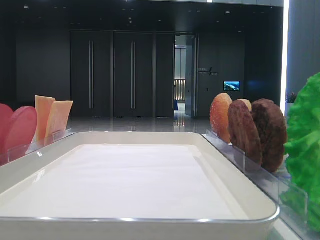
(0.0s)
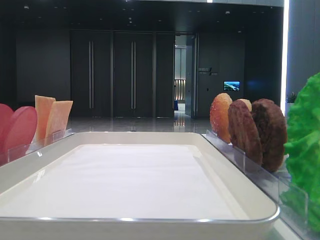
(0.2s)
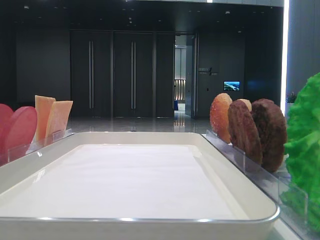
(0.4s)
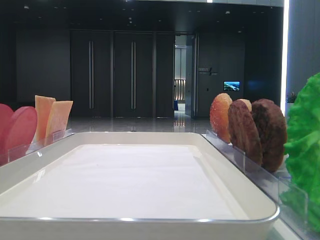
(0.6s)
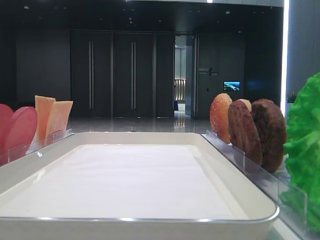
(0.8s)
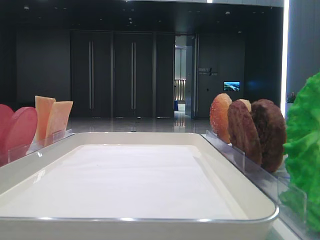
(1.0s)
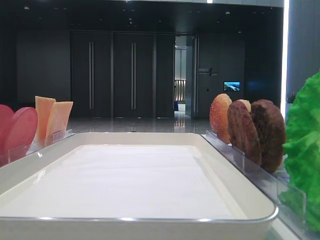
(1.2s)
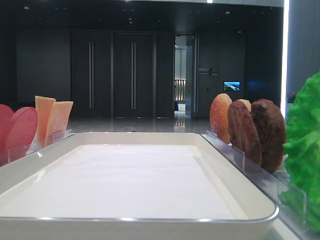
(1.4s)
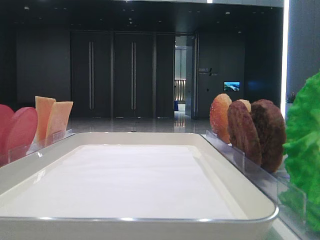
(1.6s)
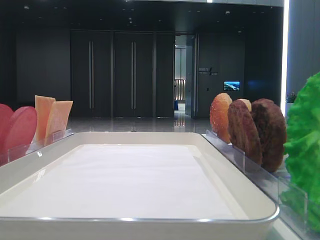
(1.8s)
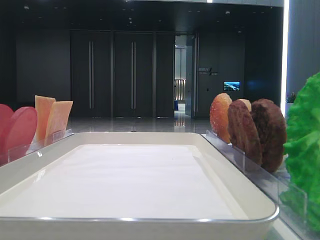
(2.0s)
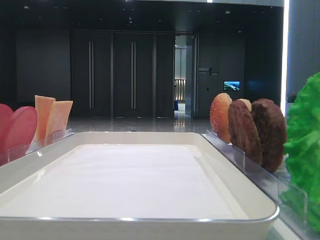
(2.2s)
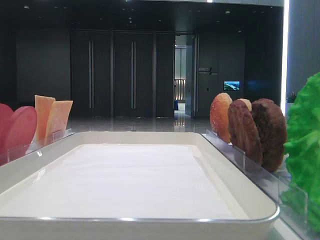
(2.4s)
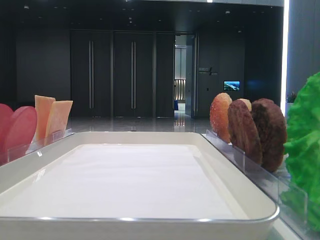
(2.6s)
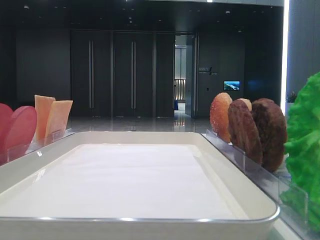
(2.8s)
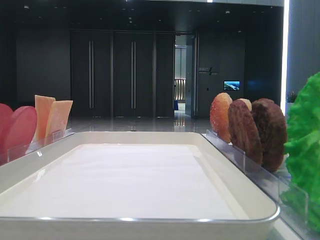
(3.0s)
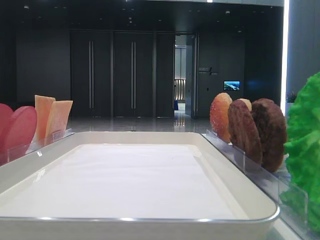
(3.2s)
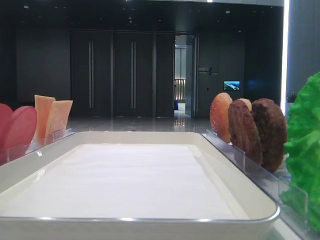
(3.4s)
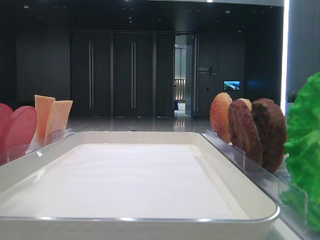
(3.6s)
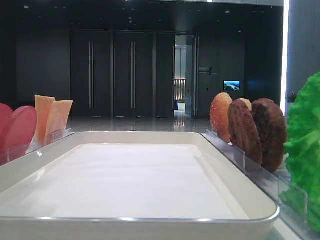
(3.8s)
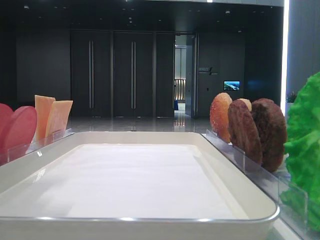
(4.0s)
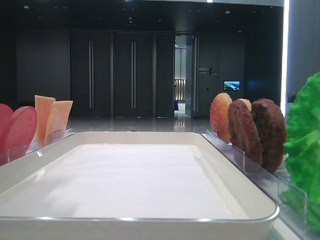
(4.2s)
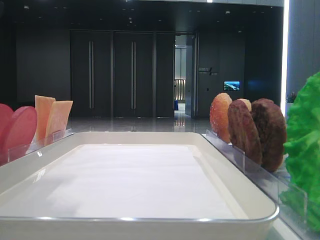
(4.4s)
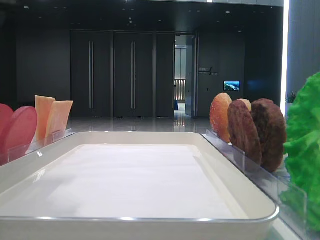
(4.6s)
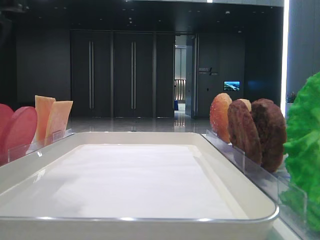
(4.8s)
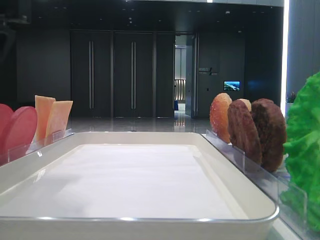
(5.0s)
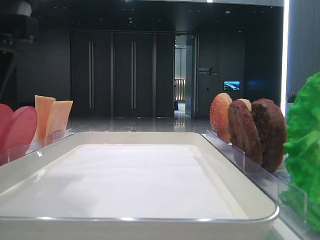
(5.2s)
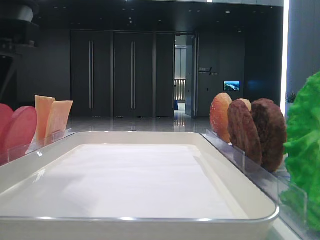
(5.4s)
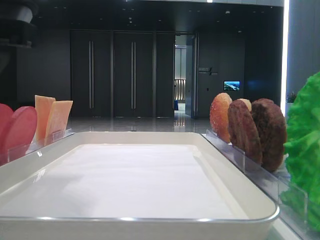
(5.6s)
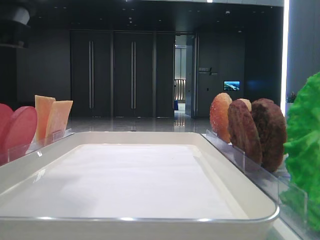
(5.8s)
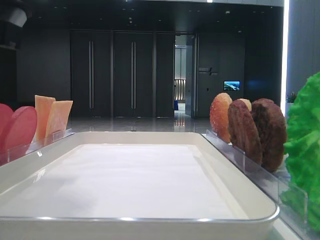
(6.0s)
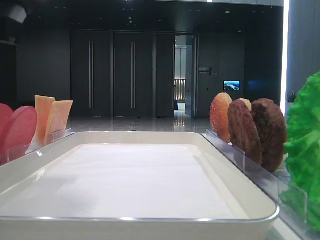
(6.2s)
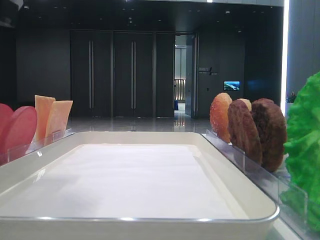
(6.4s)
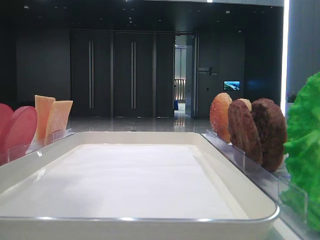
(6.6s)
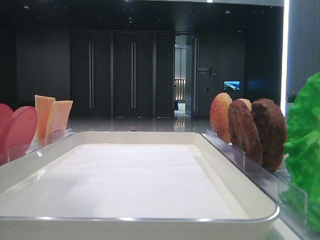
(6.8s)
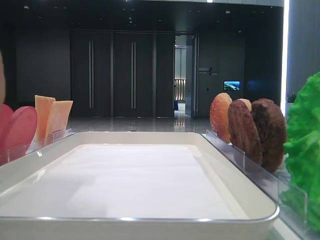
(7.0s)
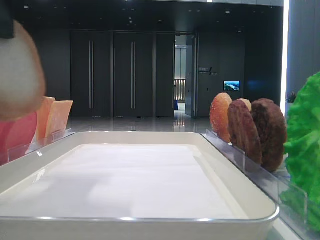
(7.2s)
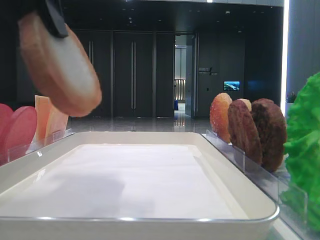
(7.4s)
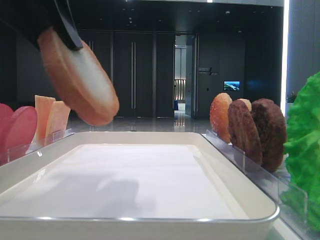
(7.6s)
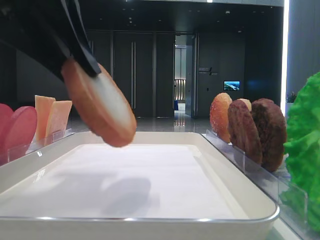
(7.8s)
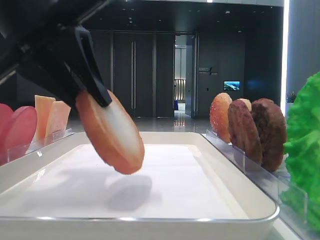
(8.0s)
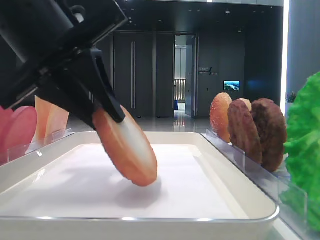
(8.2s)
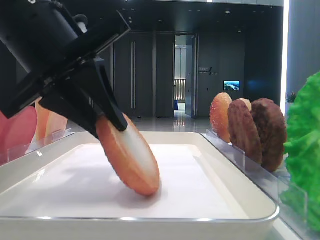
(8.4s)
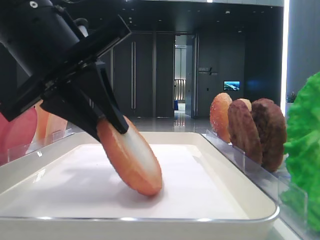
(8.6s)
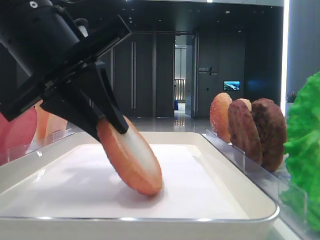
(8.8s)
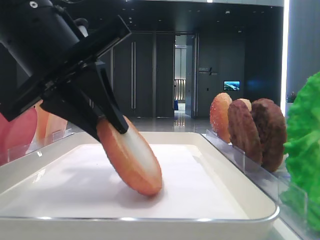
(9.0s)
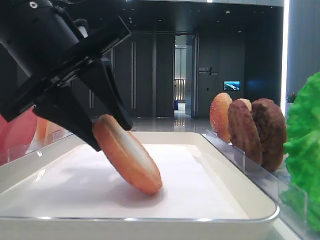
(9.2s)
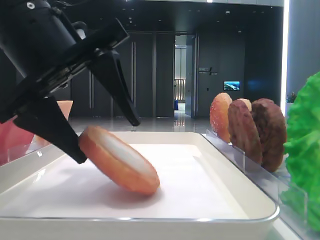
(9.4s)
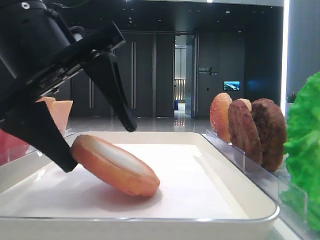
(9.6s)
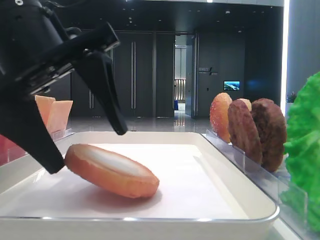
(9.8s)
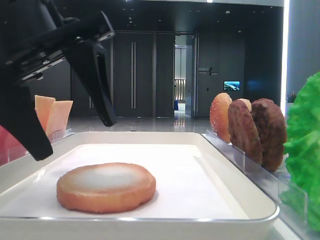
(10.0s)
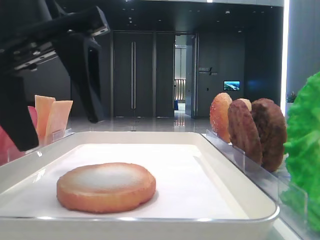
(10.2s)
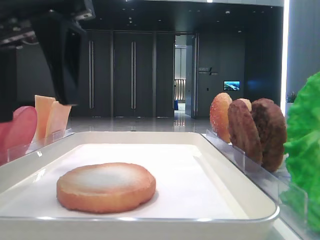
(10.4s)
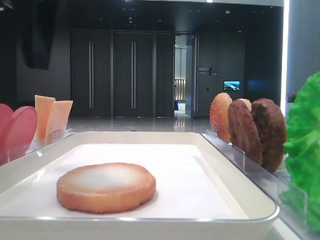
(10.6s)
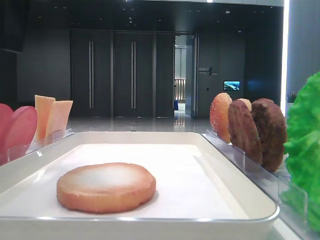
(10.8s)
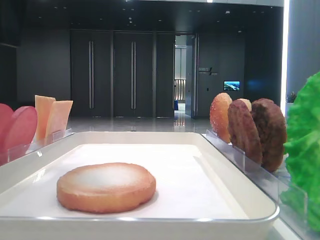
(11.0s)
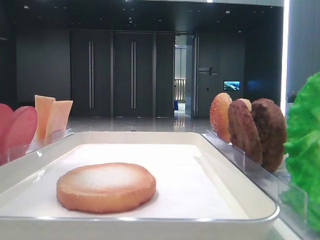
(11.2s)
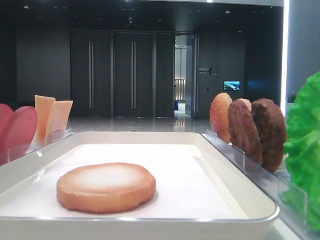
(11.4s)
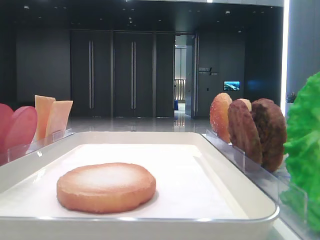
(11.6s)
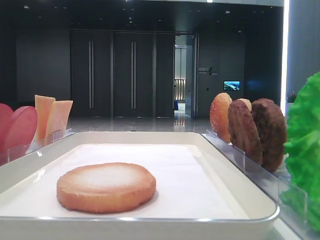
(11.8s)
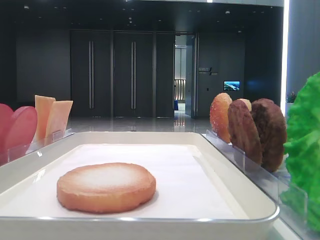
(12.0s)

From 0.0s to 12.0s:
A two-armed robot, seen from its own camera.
Step, from 0.0s to 6.0s: Pick up the bottom bread slice with the left hand.
Step, from 6.2s to 9.8s: Place the bottom bread slice on the tray with the left hand.
From 1.6s to 3.0s: The left gripper is displaced forward by some 15 cm.
From 3.0s to 4.4s: The left gripper shifts roughly 15 cm to the right and downward.
From 7.6s to 9.0s: The left gripper shifts approximately 5 cm downward.
From 9.0s to 10.4s: The left gripper goes about 5 cm upward, and opens its fingers.
From 10.4s to 12.0s: The left gripper is displaced to the left, upward and backward by about 20 cm.

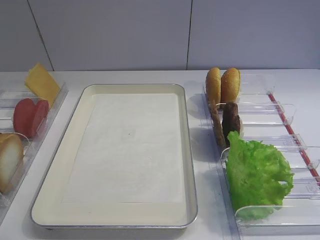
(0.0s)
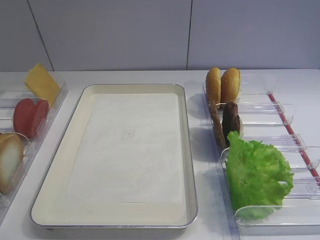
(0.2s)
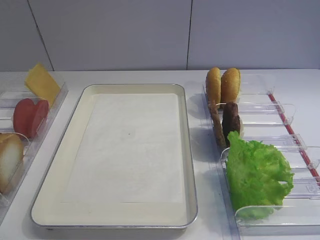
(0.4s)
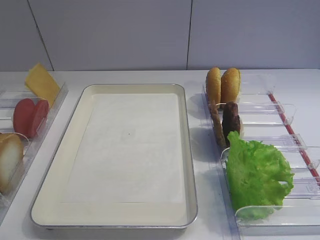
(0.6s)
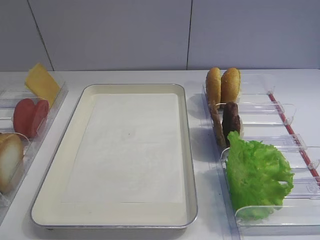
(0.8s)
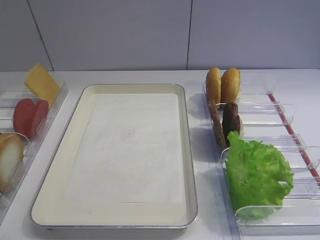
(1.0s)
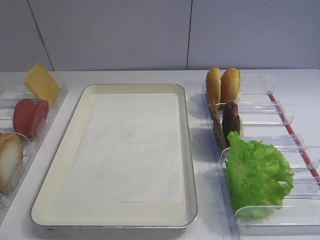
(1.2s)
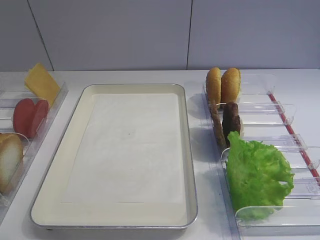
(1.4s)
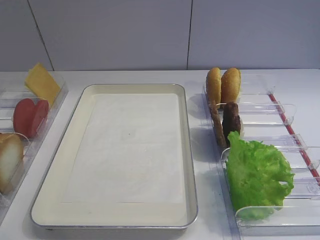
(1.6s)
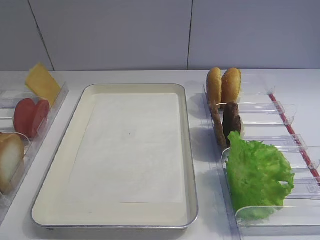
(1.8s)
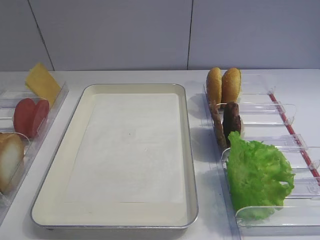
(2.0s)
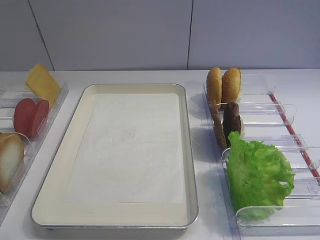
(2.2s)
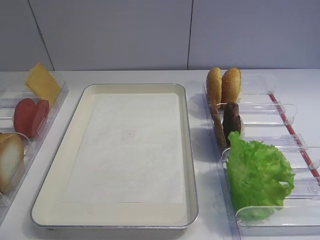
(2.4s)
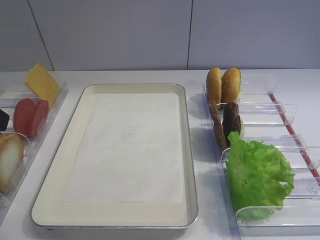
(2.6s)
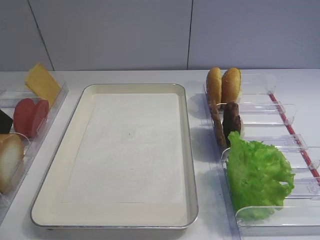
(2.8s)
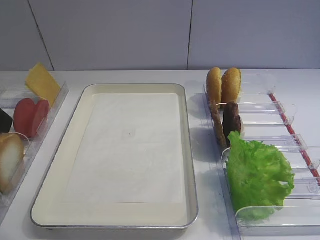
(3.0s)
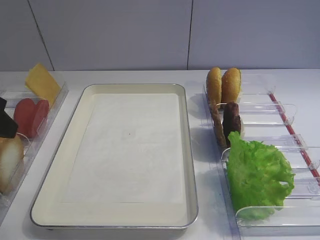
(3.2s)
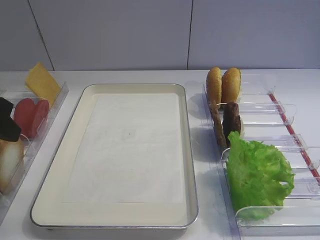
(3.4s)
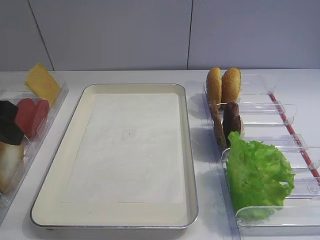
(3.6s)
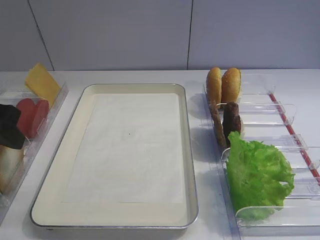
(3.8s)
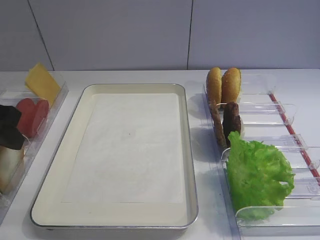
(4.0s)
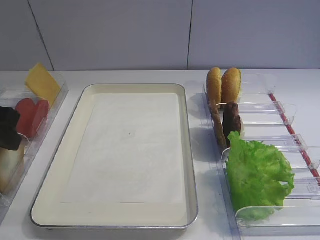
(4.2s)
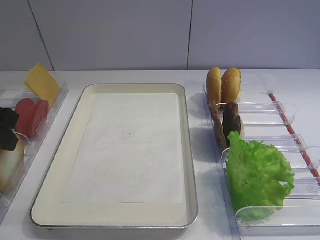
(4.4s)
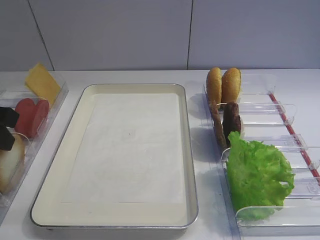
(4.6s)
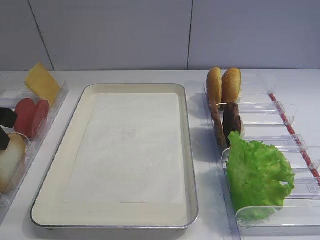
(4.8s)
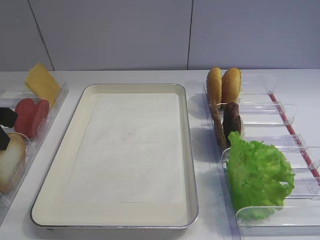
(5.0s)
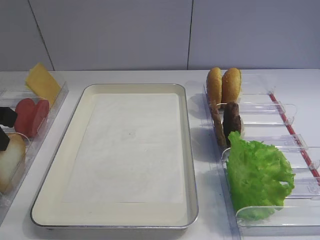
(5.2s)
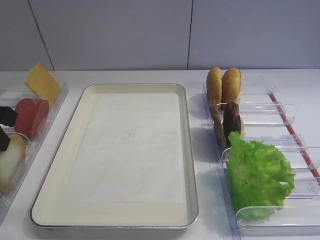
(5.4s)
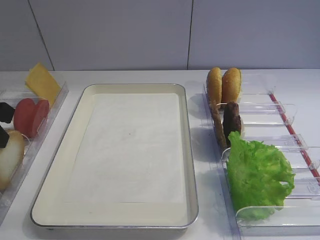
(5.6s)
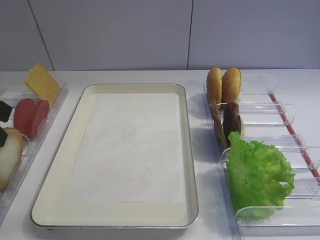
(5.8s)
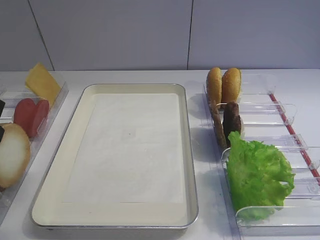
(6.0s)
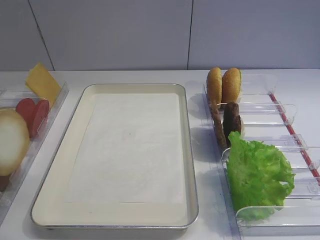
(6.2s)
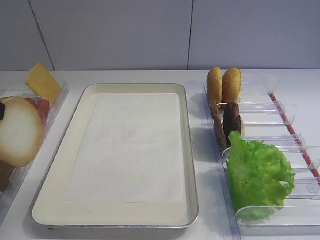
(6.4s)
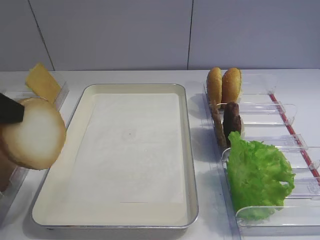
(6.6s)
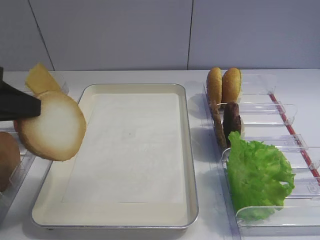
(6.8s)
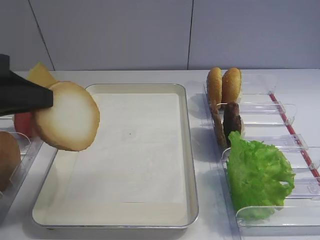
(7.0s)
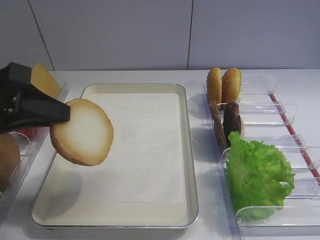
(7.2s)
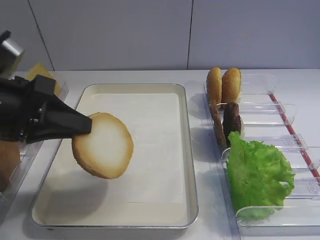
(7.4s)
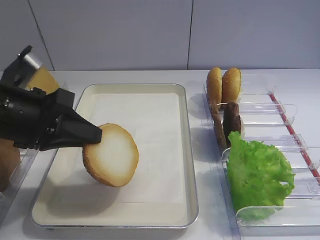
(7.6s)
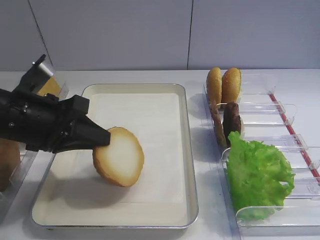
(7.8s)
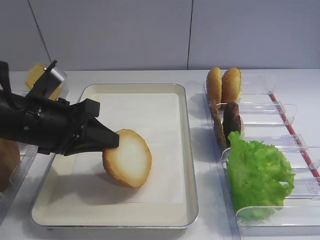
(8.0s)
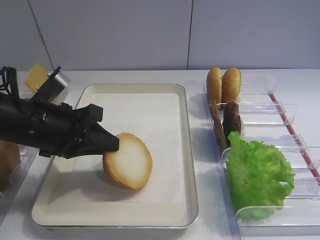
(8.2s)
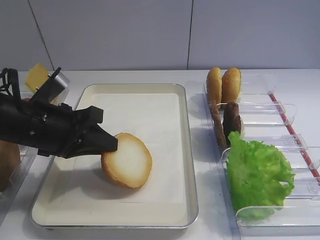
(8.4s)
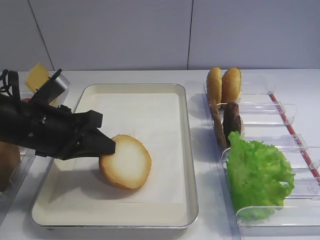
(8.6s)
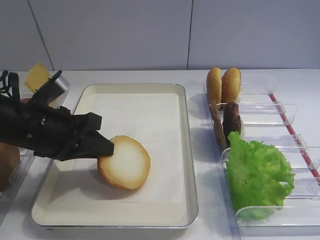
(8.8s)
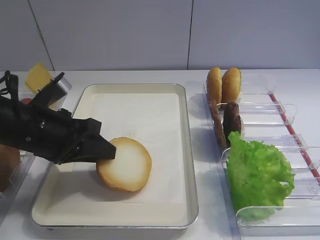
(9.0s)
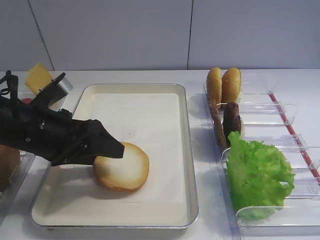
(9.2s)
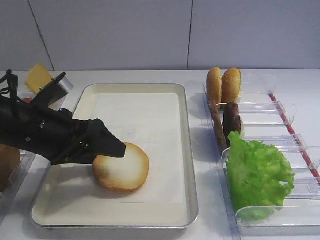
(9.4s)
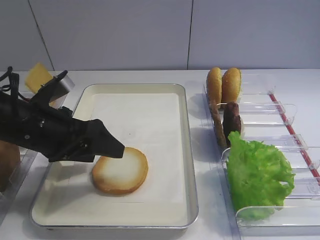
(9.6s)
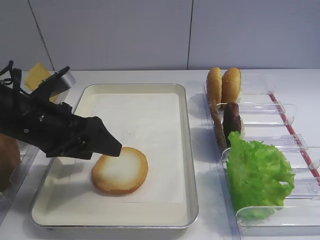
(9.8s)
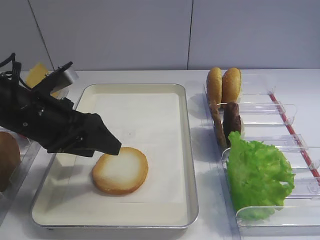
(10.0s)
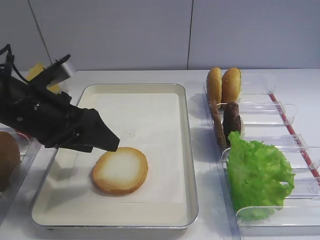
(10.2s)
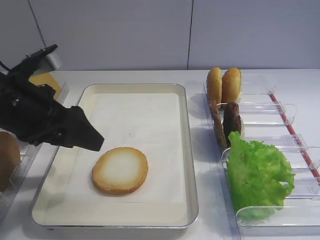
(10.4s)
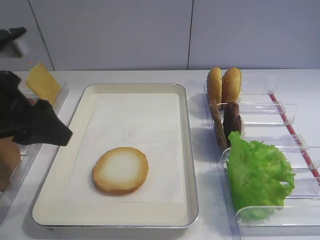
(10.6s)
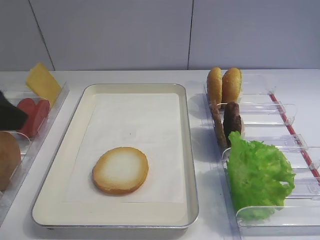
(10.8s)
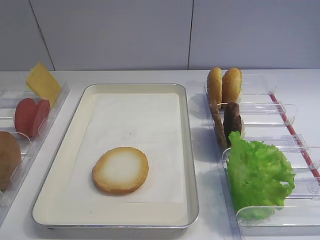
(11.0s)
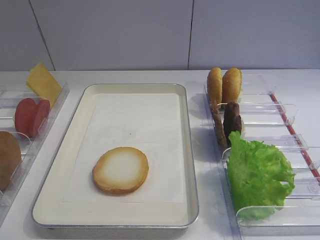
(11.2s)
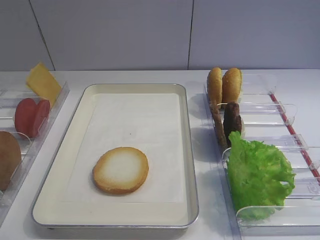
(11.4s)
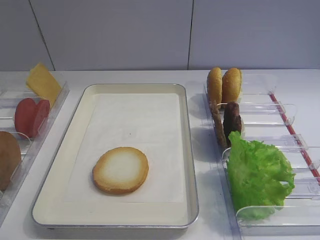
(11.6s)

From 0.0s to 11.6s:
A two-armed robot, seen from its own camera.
Step, from 0.0s to 6.0s: Pick up the bread slice with the left gripper.
Step, from 6.2s to 10.2s: Place the bread slice on the tray with the left gripper.
From 2.8s to 4.4s: The left gripper moves about 5 cm.
From 4.4s to 5.8s: The left gripper closes.
From 5.8s to 7.2s: The left gripper shifts by some 5 cm.
From 7.2s to 8.8s: The left gripper moves downward and forward, some 10 cm.
From 8.8s to 10.2s: The left gripper opens up.
From 10.2s to 11.6s: The left gripper heads backward, to the left and upward, covering roughly 25 cm.
